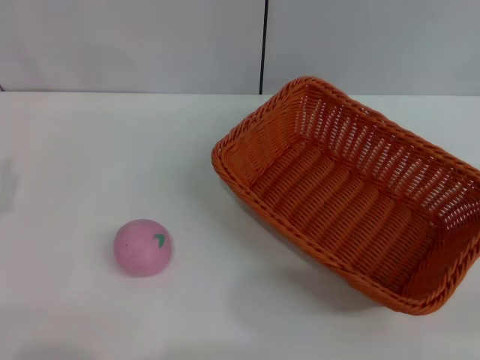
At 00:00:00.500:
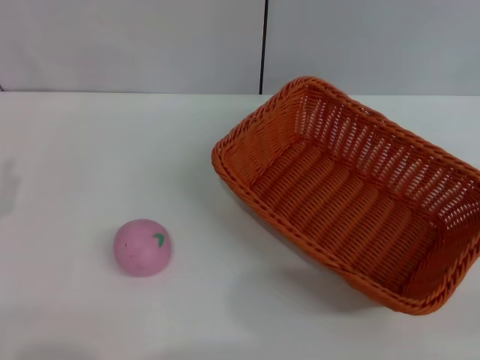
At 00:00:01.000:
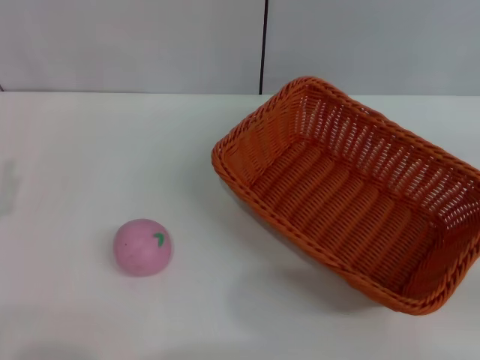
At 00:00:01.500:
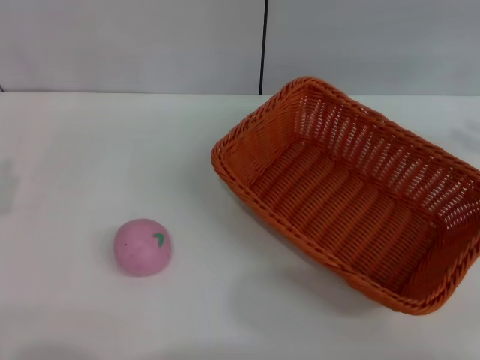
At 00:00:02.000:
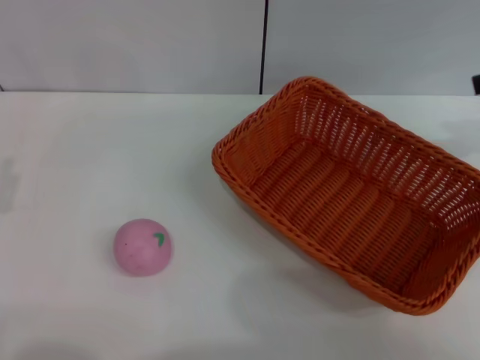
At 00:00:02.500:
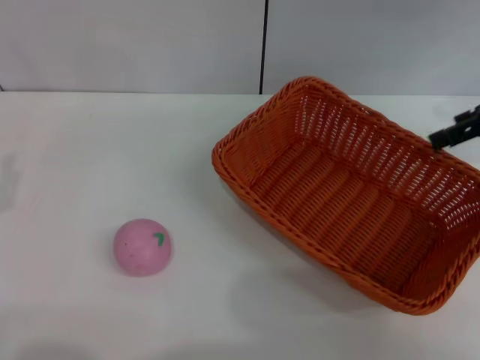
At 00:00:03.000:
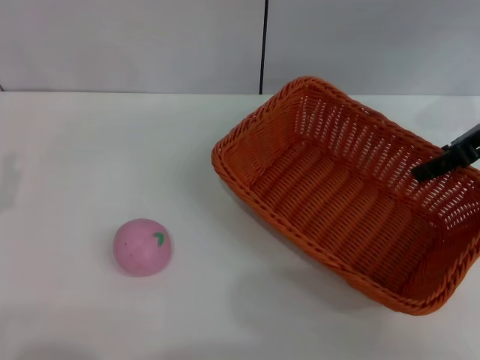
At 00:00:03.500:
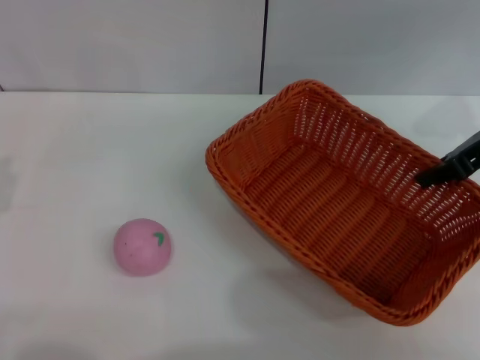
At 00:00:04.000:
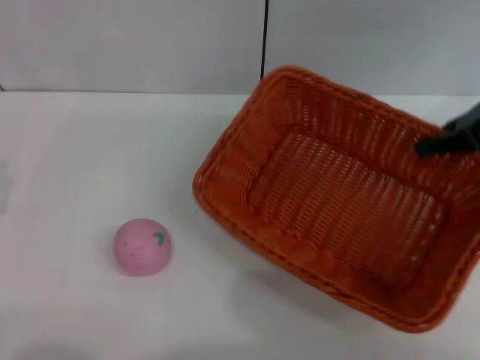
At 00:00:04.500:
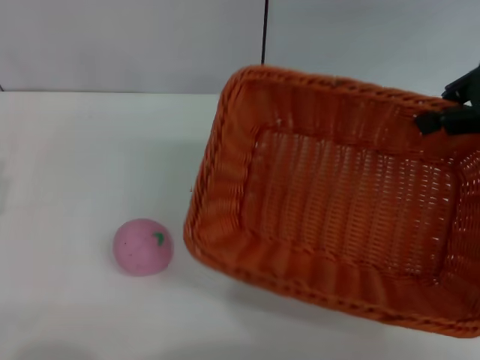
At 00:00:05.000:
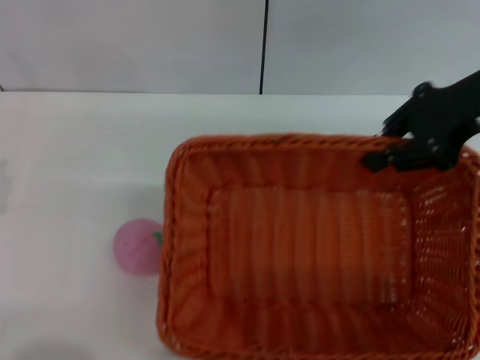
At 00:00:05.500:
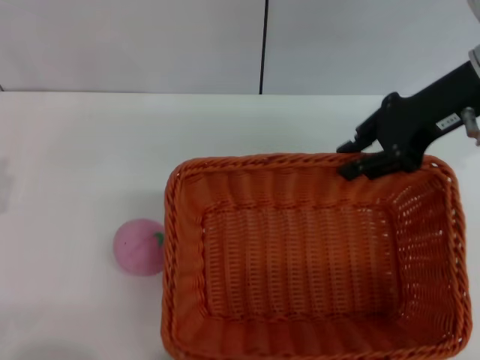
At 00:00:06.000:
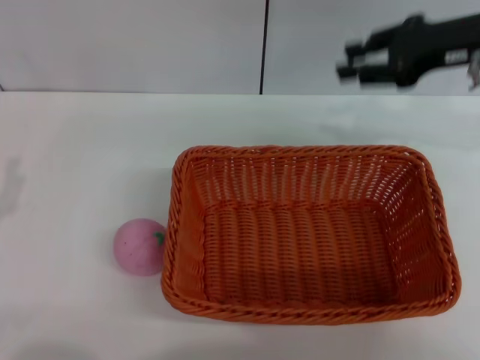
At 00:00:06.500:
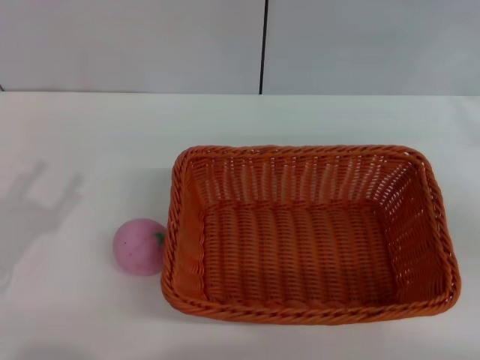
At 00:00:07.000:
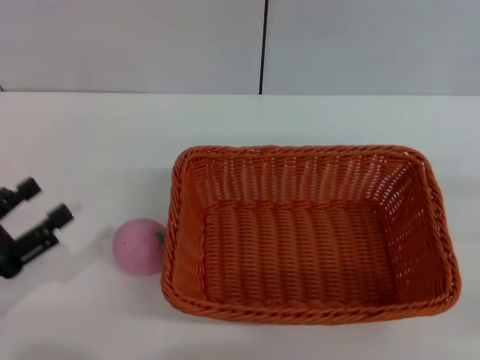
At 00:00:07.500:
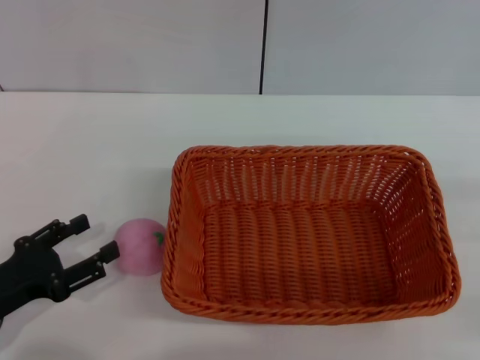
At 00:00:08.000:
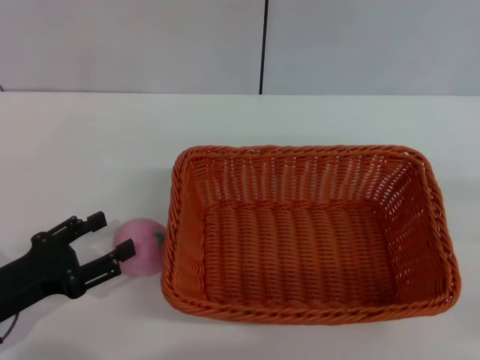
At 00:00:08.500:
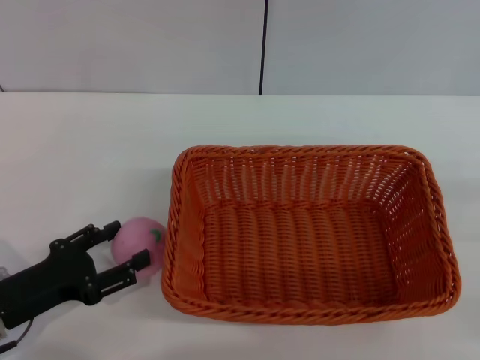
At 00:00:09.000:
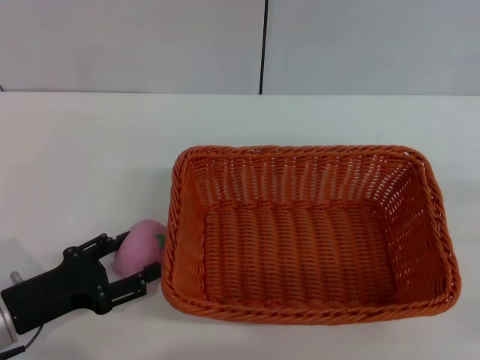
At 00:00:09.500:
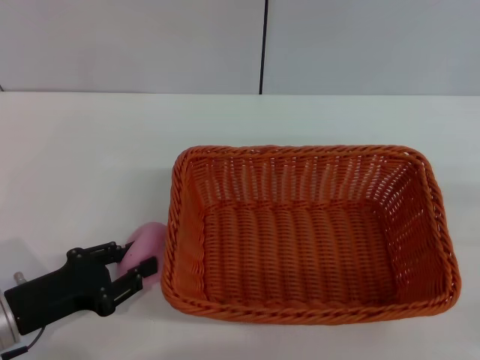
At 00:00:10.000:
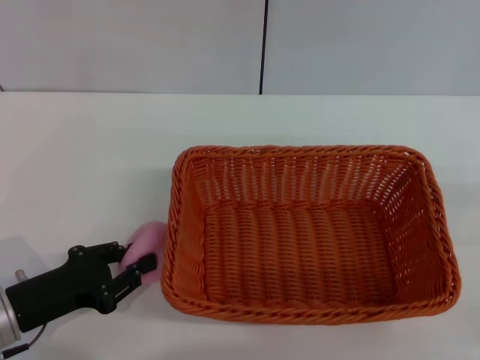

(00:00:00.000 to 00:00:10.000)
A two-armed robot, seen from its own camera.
Step, 00:00:00.000 - 00:00:04.000: Pick up the light basket with the right gripper.
Step, 00:00:04.500 - 00:00:06.500: Place the light basket in the center of view with the right gripper.
00:00:00.000 - 00:00:02.000: The right gripper goes about 25 cm upward and forward.
00:00:02.000 - 00:00:04.000: The right gripper goes roughly 5 cm to the left, and closes up.
00:00:04.000 - 00:00:06.000: The right gripper ends up some 5 cm from where it was, and opens.
00:00:06.000 - 00:00:08.000: The right gripper travels backward, to the right and downward by roughly 25 cm.
00:00:08.000 - 00:00:10.000: The left gripper closes.

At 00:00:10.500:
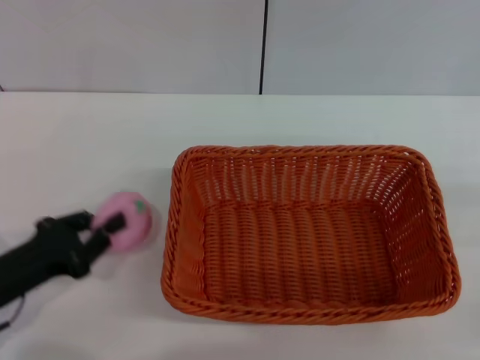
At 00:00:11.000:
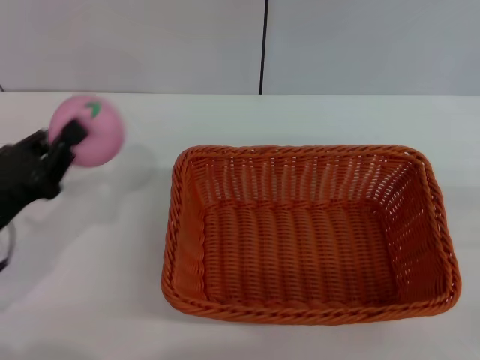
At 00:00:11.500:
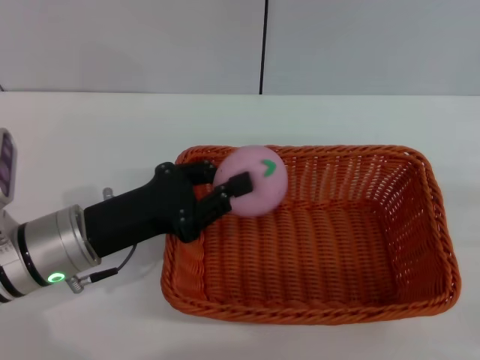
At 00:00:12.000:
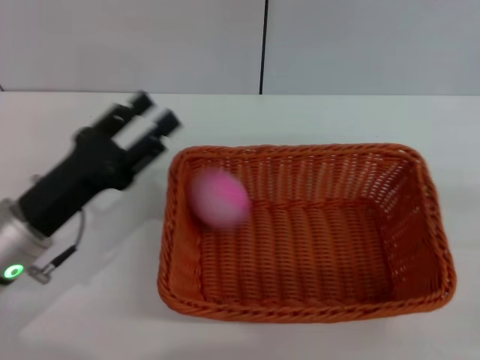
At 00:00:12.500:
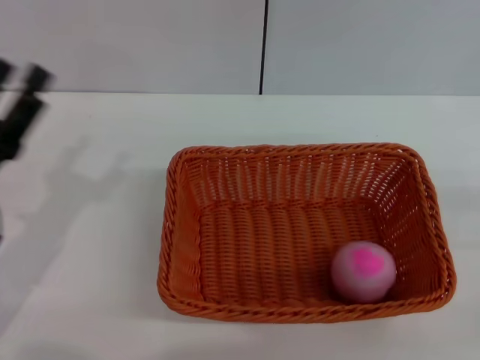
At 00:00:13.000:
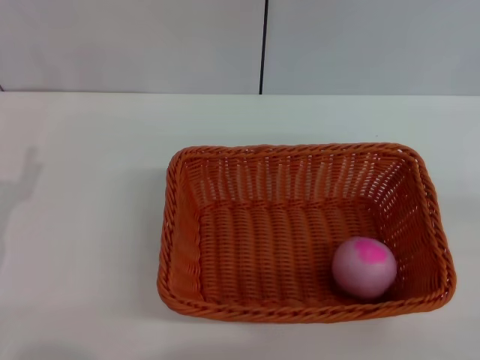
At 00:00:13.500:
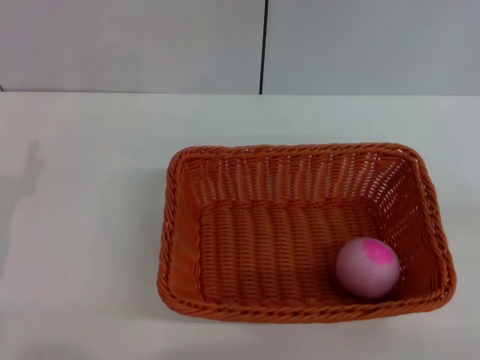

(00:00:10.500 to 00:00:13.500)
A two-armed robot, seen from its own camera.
Step, 00:00:11.000 - 00:00:12.000: Place the peach into the basket with the left gripper.
00:00:10.500 - 00:00:12.000: The left gripper is displaced to the right by approximately 5 cm, and opens its fingers.
00:00:12.000 - 00:00:13.500: The left gripper moves to the left, roughly 5 cm.

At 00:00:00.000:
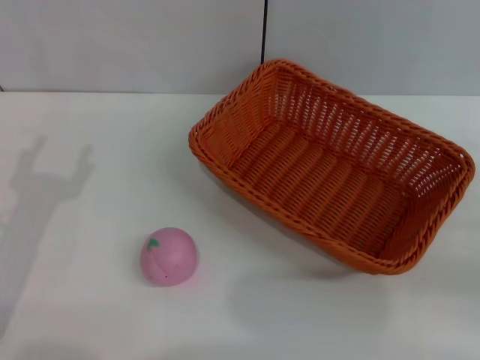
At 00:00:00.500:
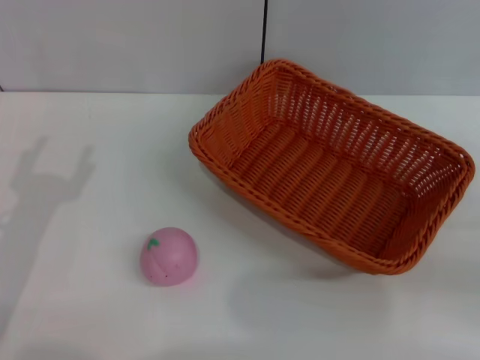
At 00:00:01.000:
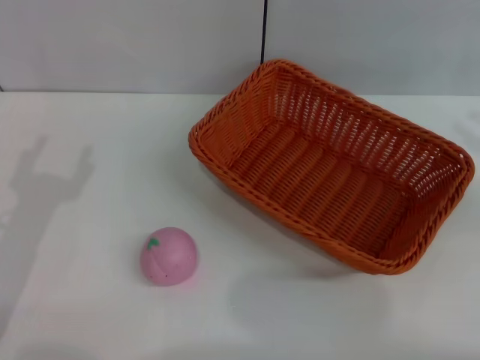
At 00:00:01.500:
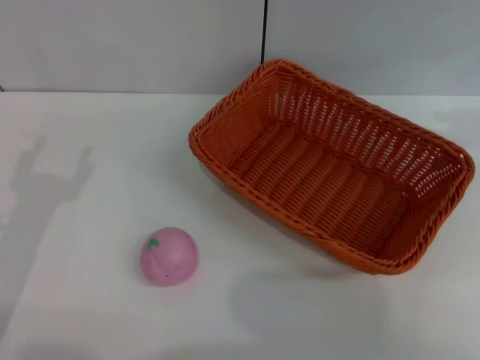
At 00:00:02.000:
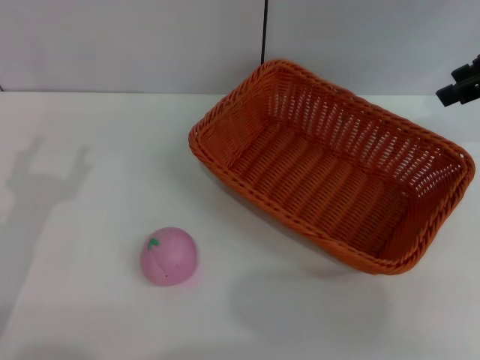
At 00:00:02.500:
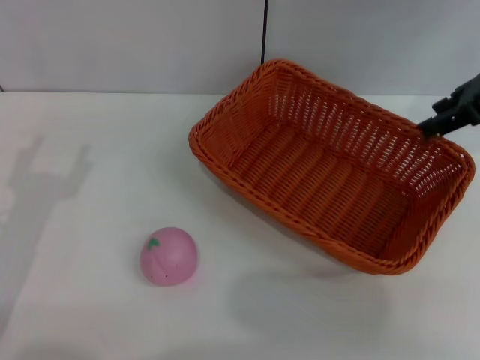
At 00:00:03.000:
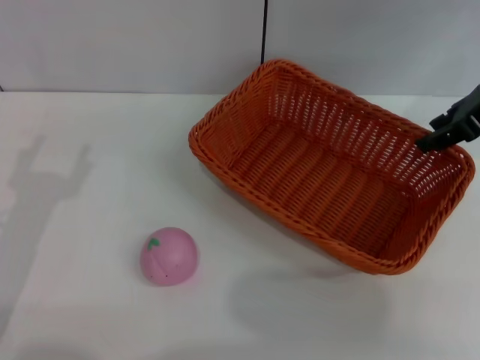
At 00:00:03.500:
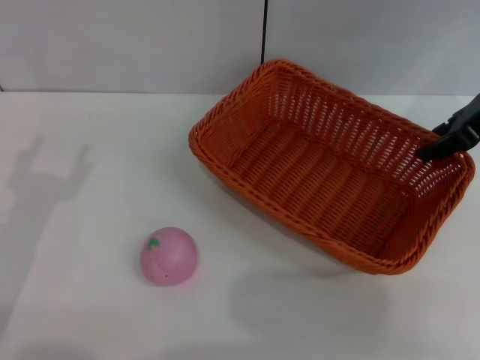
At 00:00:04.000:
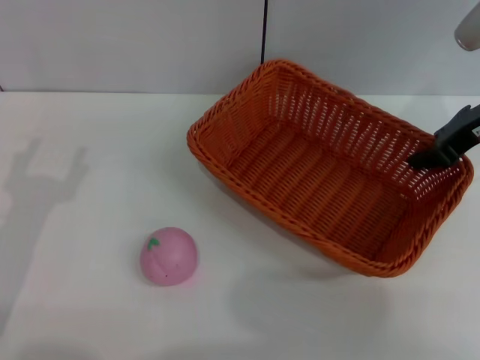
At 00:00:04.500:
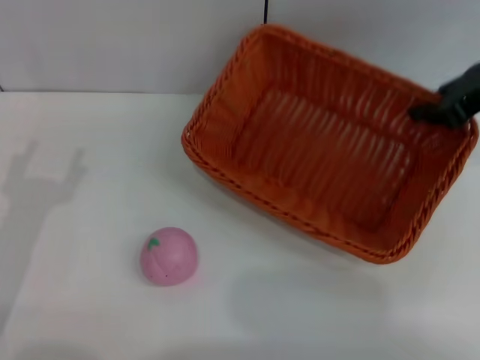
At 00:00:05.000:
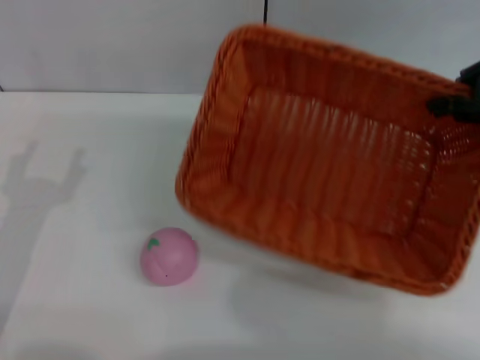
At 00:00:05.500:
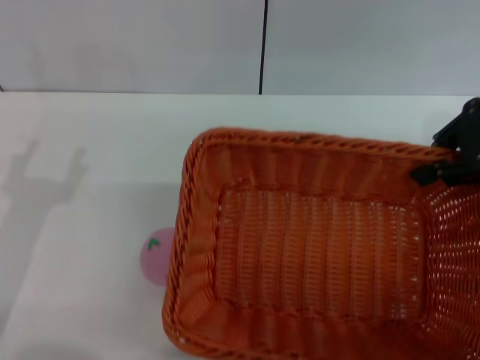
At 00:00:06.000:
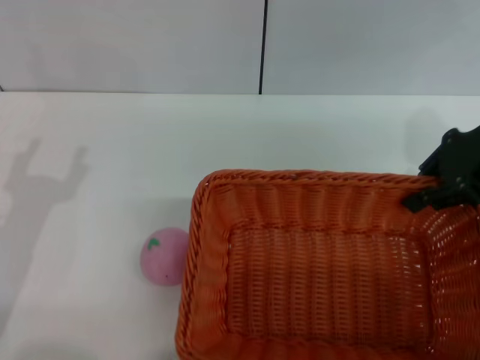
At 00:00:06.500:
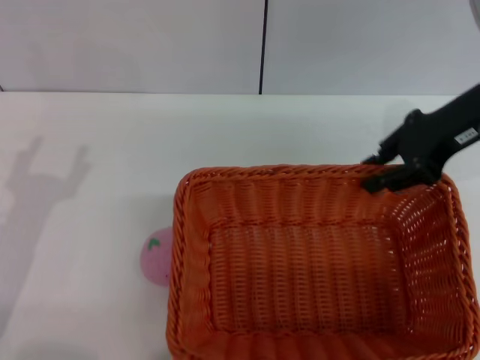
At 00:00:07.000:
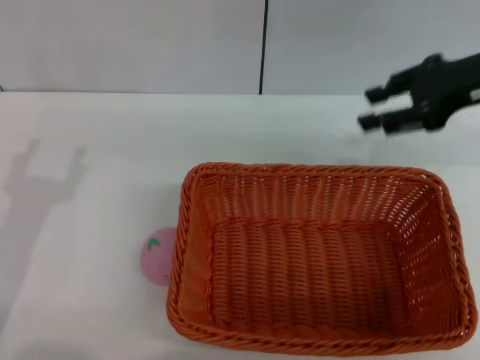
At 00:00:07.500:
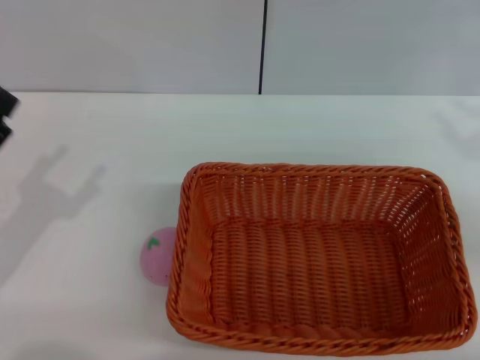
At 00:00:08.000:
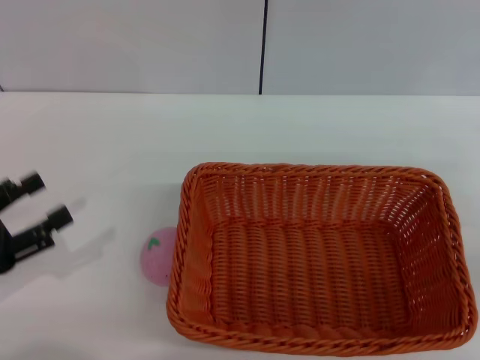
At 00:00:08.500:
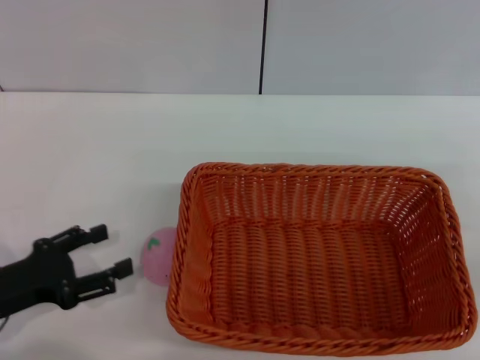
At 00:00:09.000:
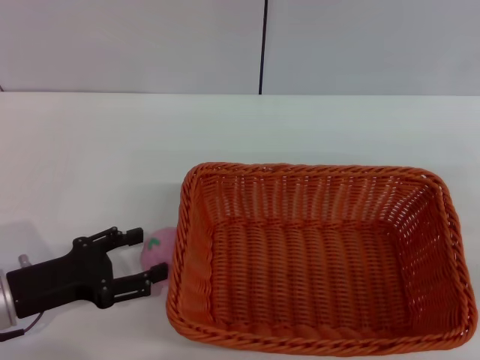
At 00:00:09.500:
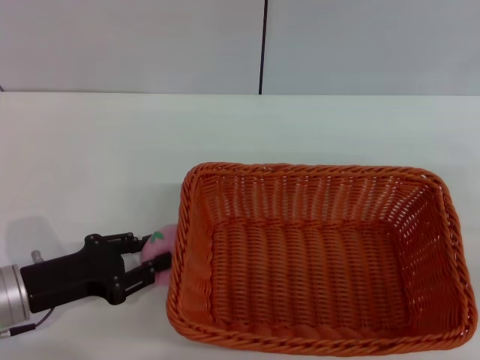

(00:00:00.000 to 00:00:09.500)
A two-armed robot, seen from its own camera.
Step, 00:00:00.000 - 00:00:04.000: Pick up the light basket with the right gripper.
Step, 00:00:04.500 - 00:00:06.500: Place the light basket in the center of view with the right gripper.
00:00:00.000 - 00:00:02.000: The right gripper shifts some 25 cm upward, forward and to the left.
00:00:02.000 - 00:00:04.000: The right gripper goes about 10 cm downward.
00:00:04.000 - 00:00:05.500: The right gripper shifts about 5 cm upward, and closes its fingers.
00:00:05.500 - 00:00:07.500: The right gripper heads downward, to the right and backward, covering about 15 cm, and opens its fingers.
00:00:07.500 - 00:00:09.500: The left gripper travels downward by about 5 cm, and closes its fingers.

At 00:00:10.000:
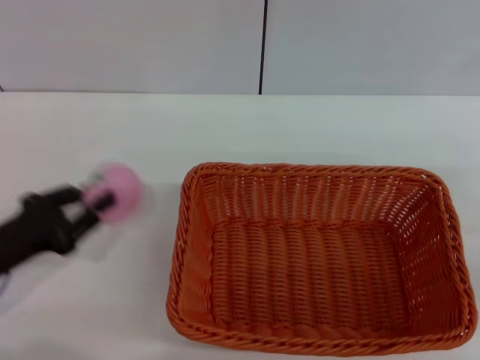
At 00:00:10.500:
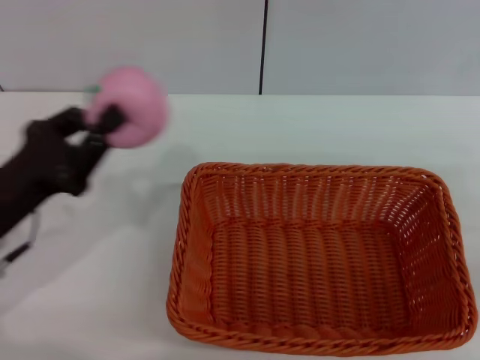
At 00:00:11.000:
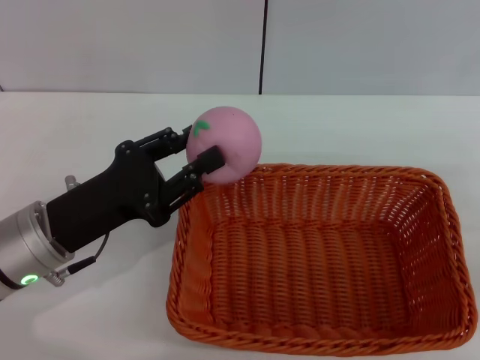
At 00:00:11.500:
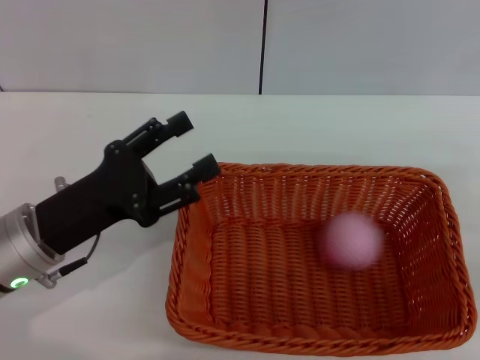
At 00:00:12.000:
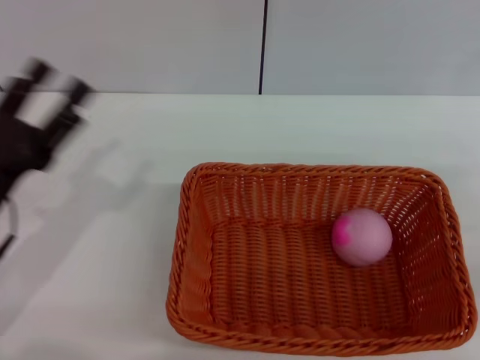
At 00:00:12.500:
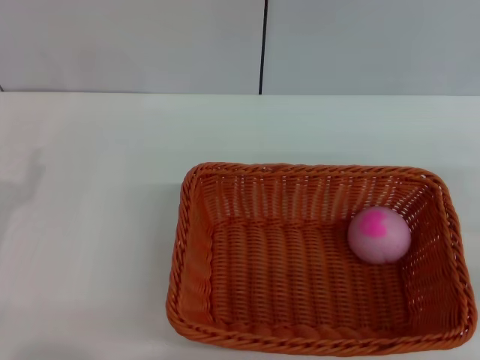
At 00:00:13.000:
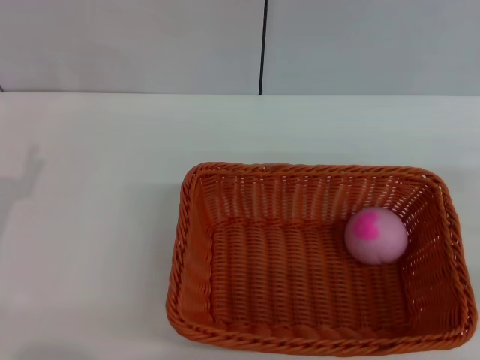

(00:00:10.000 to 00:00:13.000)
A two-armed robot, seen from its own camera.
Step, 00:00:10.500 - 00:00:11.000: Place the peach into the basket with the left gripper.
00:00:10.000 - 00:00:11.500: The left gripper moves to the right, approximately 10 cm, and opens up.
00:00:11.500 - 00:00:13.000: The left gripper heads to the left, covering about 10 cm.
